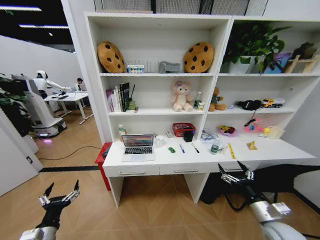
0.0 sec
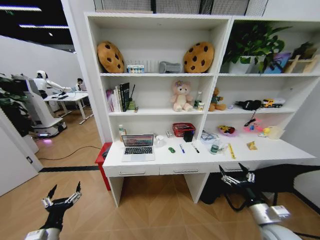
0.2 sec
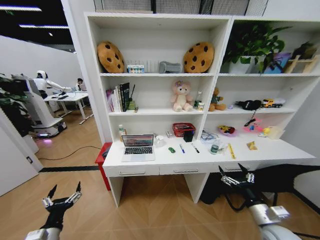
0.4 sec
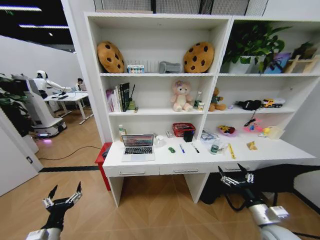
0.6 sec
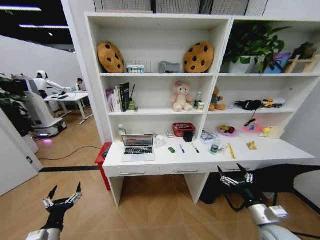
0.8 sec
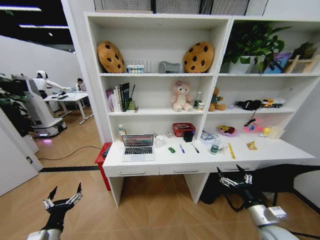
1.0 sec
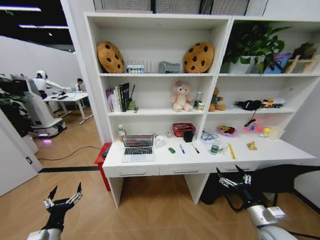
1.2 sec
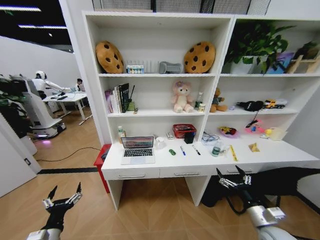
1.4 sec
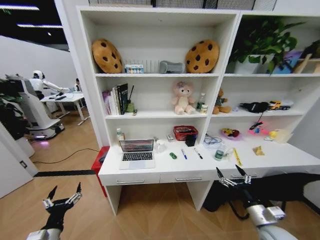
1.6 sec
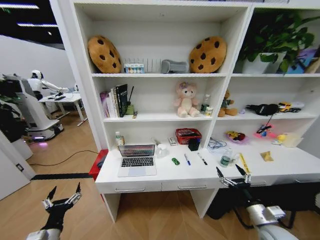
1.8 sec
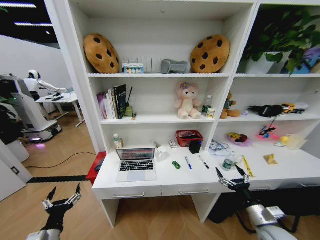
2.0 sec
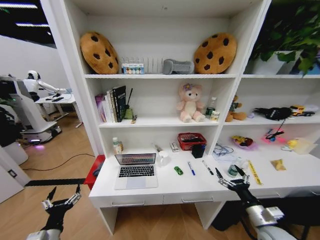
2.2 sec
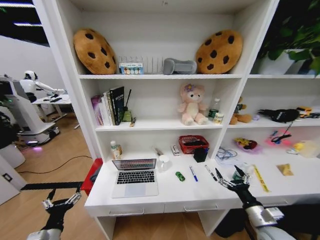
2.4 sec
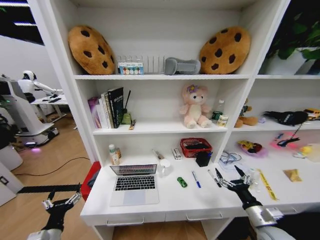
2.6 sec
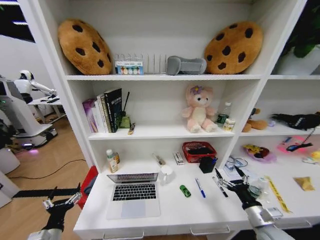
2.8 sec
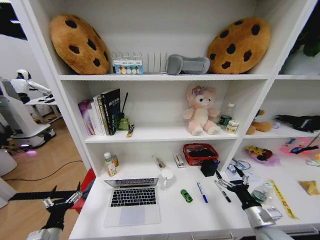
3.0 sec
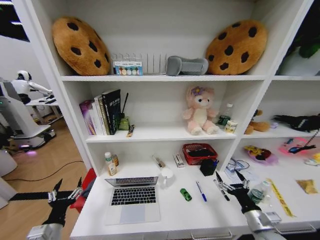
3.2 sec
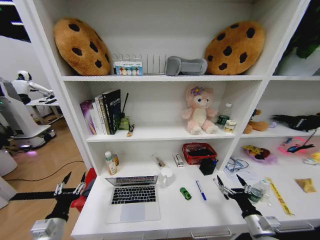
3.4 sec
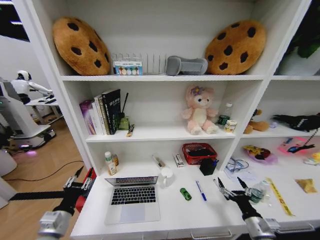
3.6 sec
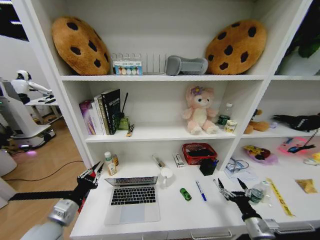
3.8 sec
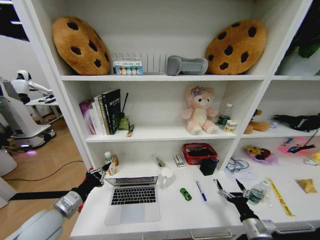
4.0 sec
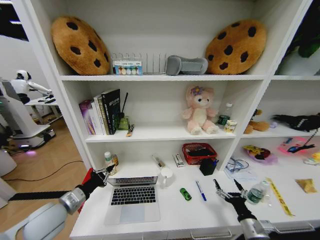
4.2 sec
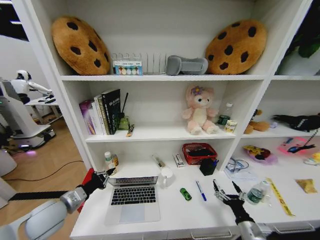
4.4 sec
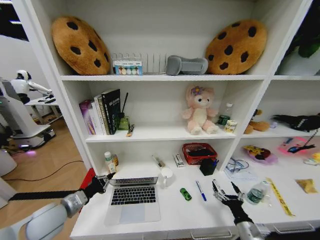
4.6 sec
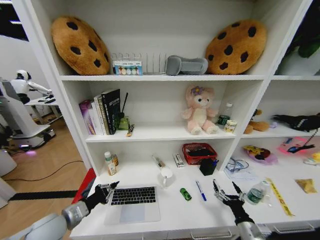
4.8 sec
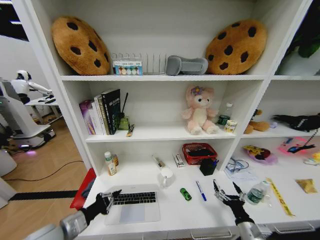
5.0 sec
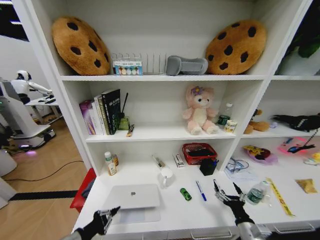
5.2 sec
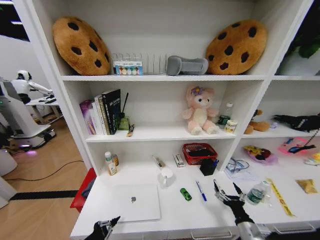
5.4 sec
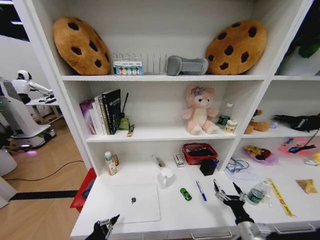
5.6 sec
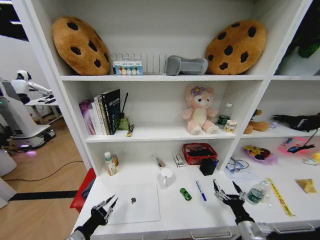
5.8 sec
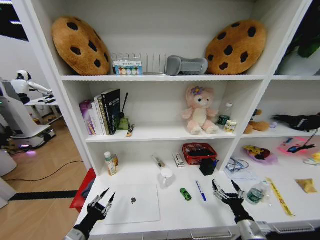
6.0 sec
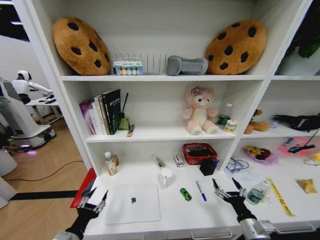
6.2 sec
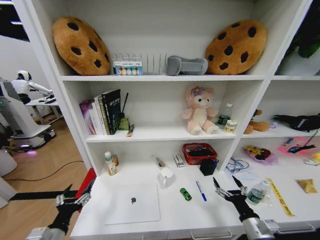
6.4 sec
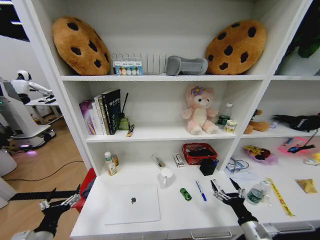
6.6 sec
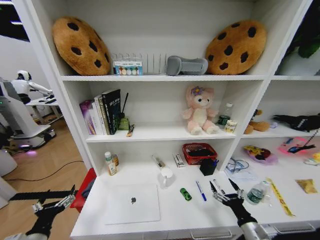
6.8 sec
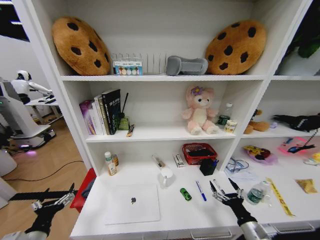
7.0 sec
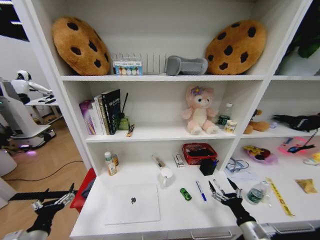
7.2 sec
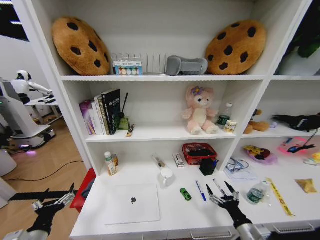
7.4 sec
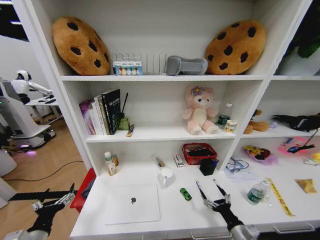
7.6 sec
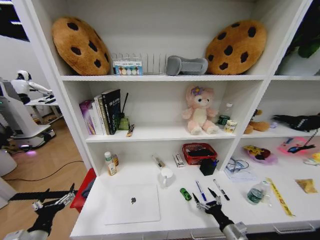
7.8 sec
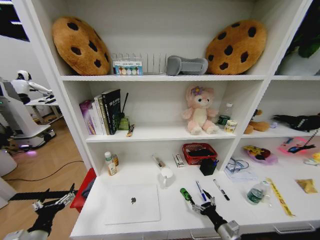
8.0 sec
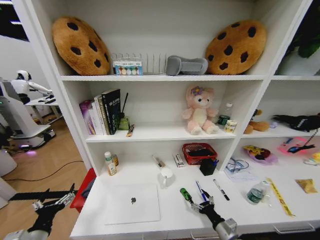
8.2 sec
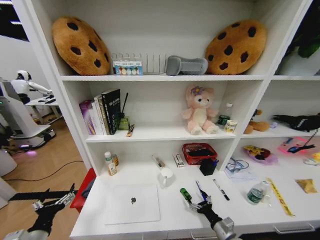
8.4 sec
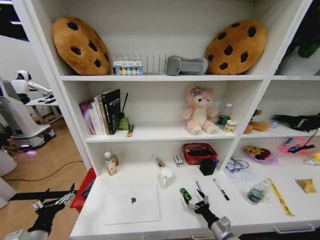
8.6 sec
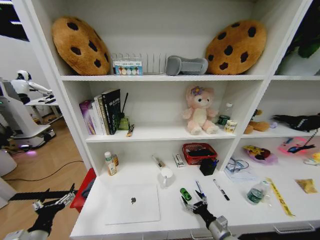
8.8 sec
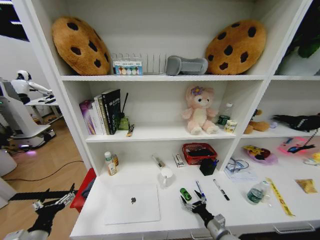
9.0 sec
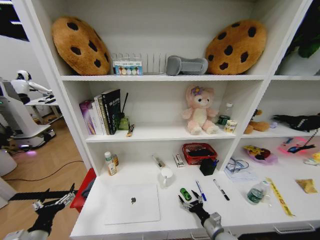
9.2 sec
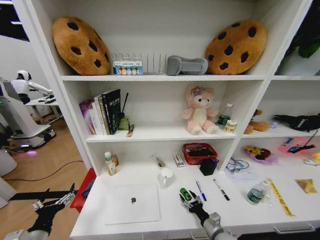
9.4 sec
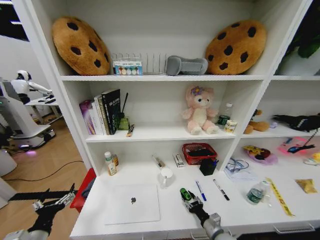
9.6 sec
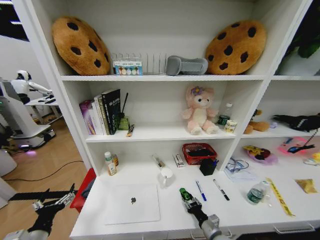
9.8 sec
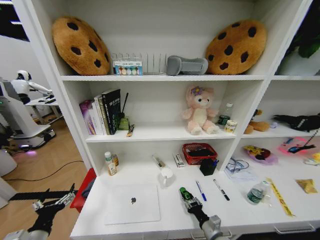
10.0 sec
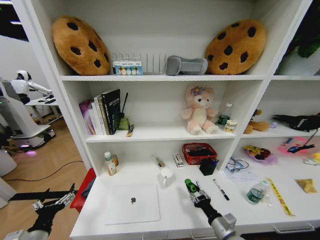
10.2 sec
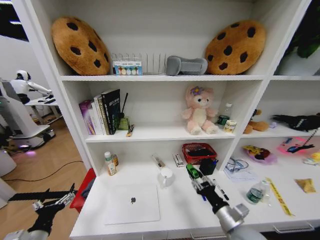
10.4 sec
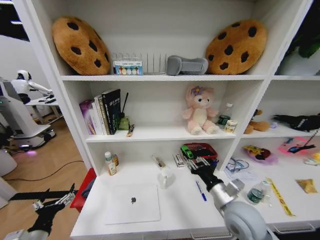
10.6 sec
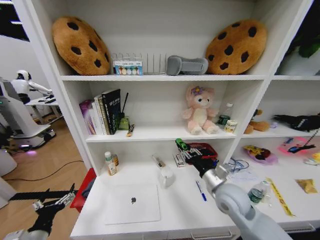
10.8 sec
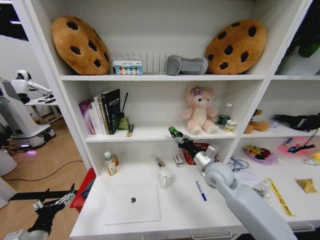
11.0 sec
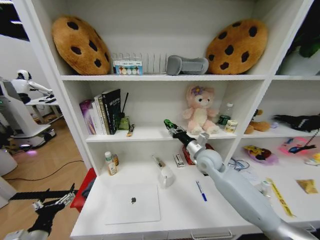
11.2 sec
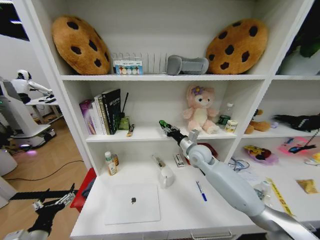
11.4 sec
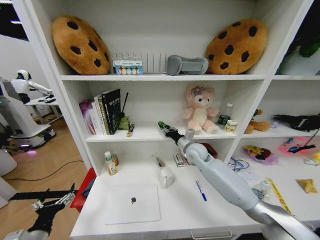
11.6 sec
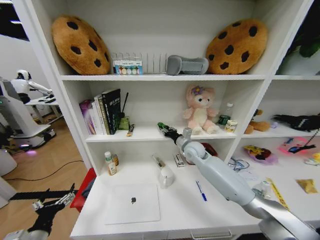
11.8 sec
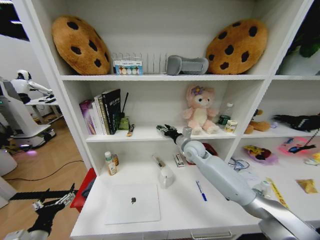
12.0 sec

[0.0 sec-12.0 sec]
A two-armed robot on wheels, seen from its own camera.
Task of the whole recording: Organize the objects on the table.
3.0 sec to 4.4 sec: The right gripper is displaced downward by some 5 cm. Meanwhile the left gripper travels forward and upward by about 15 cm, and closes.
4.4 sec to 6.0 sec: The left gripper is displaced backward and downward by approximately 15 cm, and opens.
6.0 sec to 7.6 sec: The left gripper heads to the left, covering about 5 cm, and opens up.
7.6 sec to 9.0 sec: The right gripper is displaced downward by some 5 cm.
9.0 sec to 10.4 sec: The right gripper goes approximately 15 cm upward, and closes its fingers.
10.4 sec to 12.0 sec: The right gripper is displaced forward by approximately 30 cm.

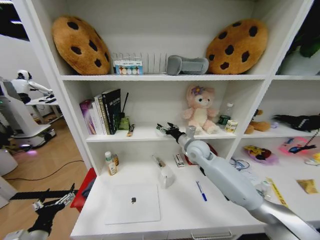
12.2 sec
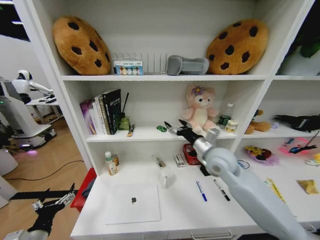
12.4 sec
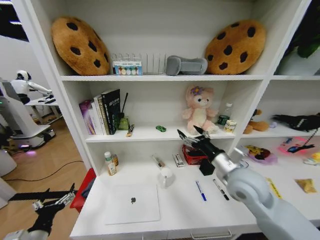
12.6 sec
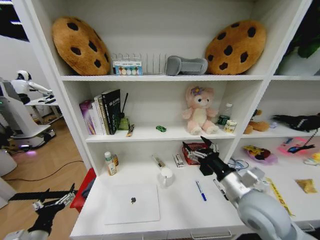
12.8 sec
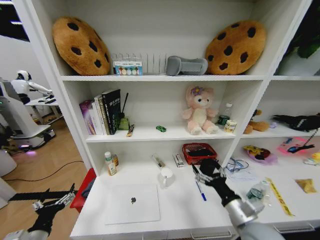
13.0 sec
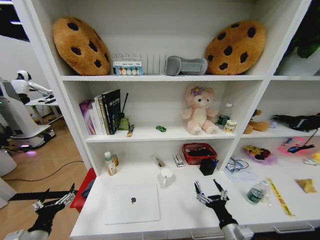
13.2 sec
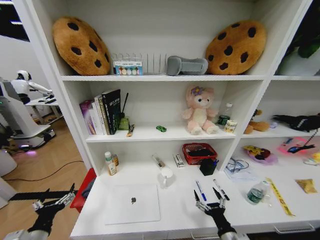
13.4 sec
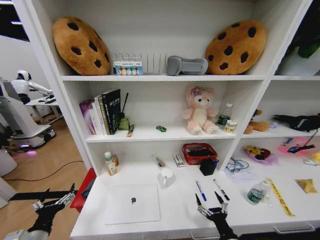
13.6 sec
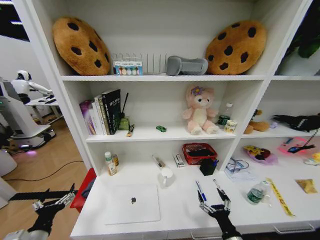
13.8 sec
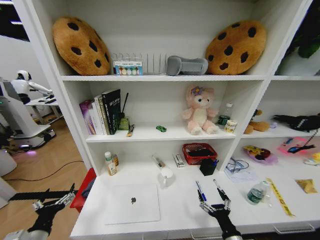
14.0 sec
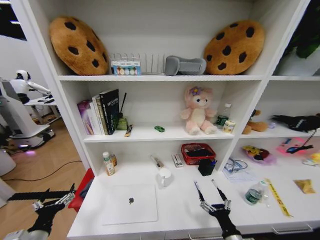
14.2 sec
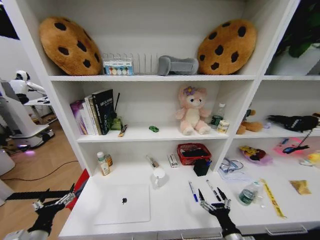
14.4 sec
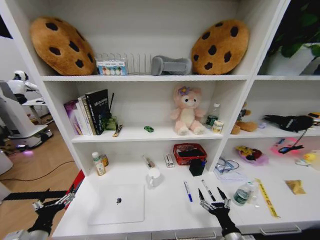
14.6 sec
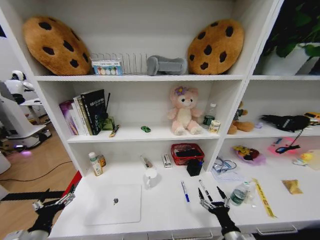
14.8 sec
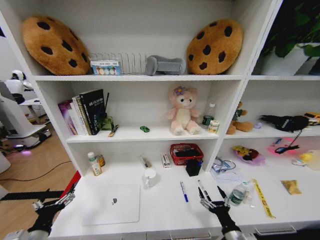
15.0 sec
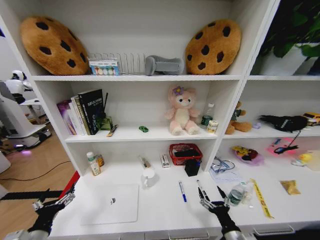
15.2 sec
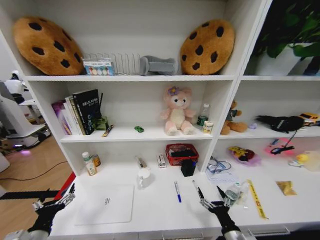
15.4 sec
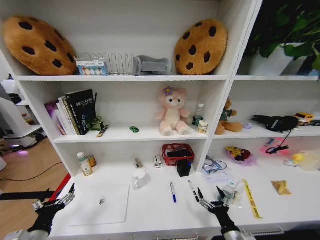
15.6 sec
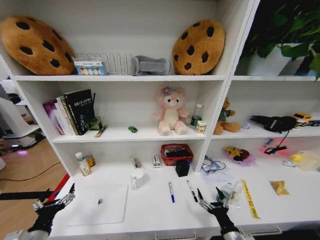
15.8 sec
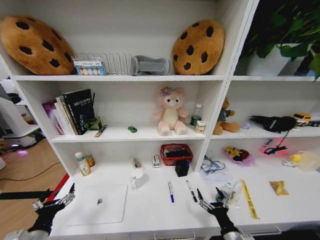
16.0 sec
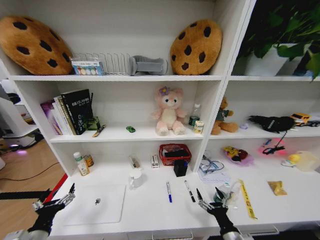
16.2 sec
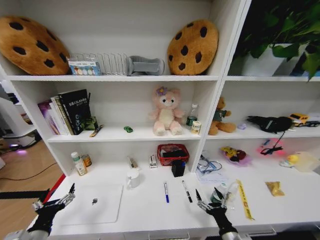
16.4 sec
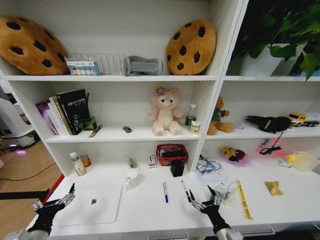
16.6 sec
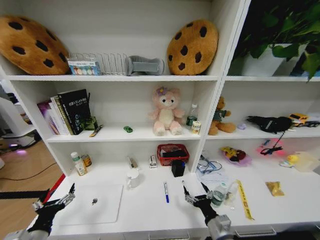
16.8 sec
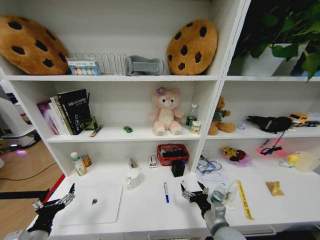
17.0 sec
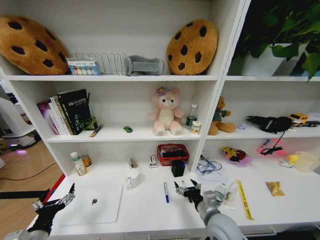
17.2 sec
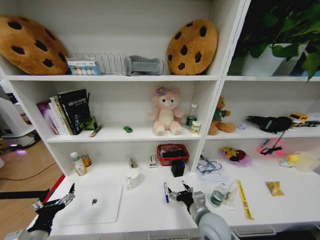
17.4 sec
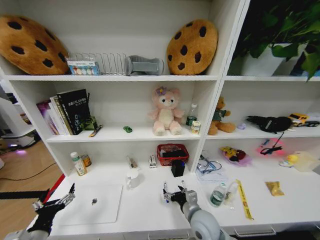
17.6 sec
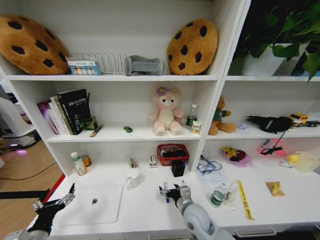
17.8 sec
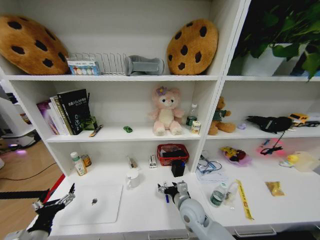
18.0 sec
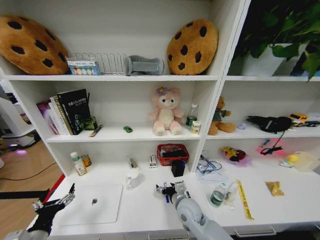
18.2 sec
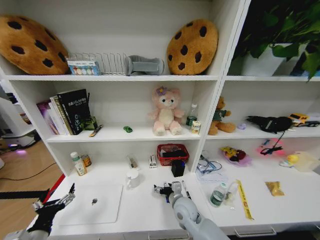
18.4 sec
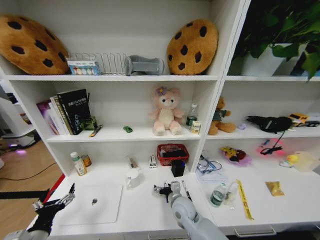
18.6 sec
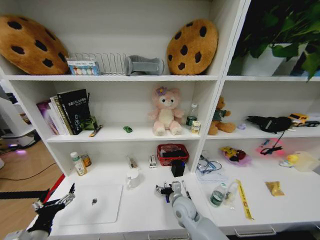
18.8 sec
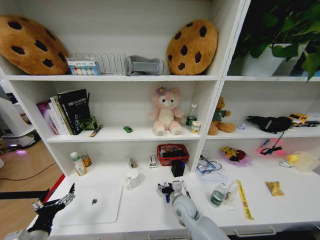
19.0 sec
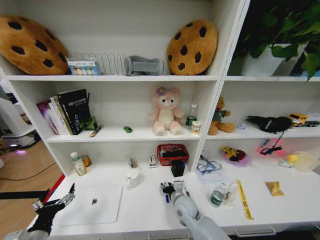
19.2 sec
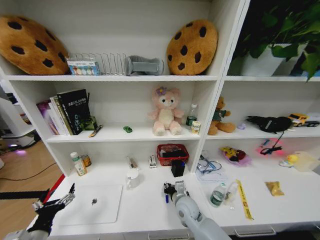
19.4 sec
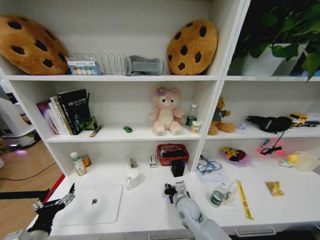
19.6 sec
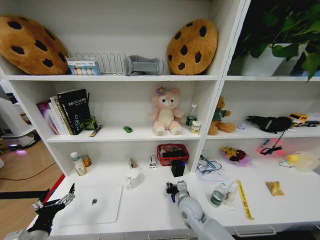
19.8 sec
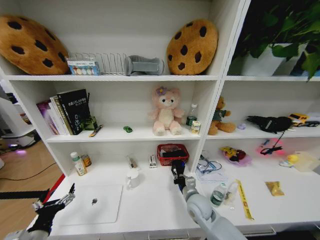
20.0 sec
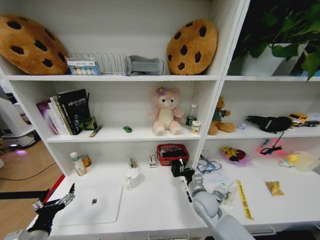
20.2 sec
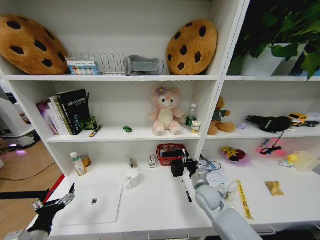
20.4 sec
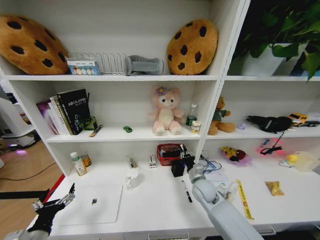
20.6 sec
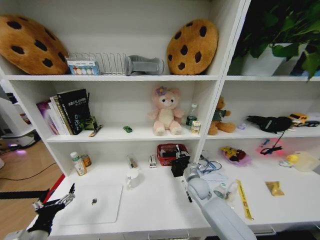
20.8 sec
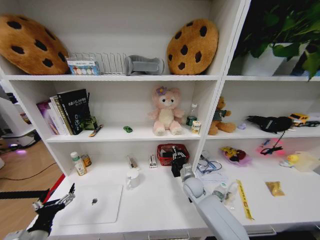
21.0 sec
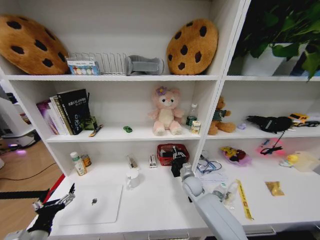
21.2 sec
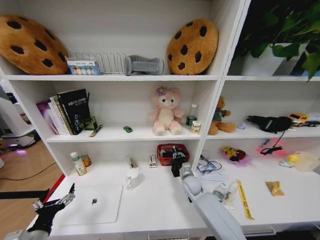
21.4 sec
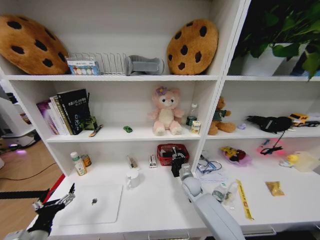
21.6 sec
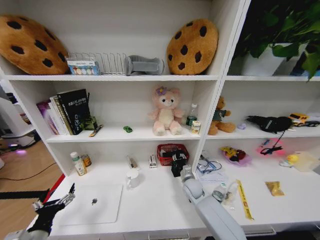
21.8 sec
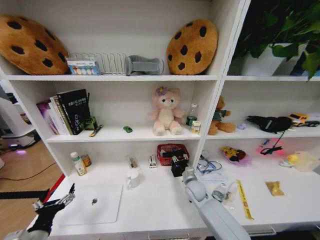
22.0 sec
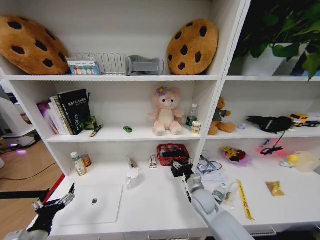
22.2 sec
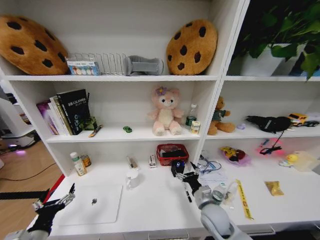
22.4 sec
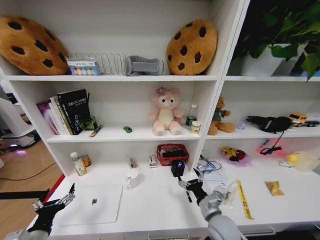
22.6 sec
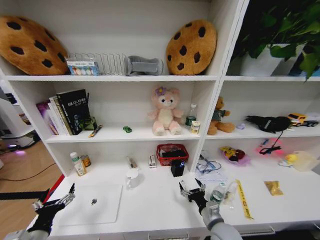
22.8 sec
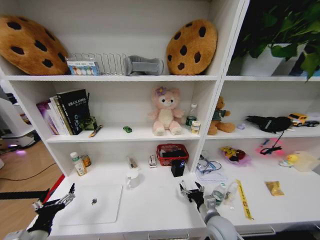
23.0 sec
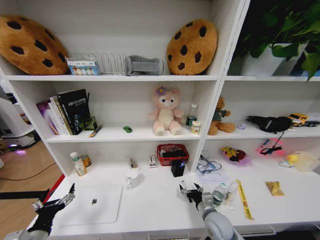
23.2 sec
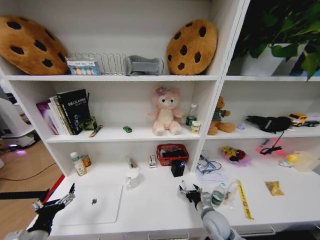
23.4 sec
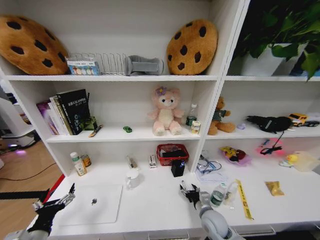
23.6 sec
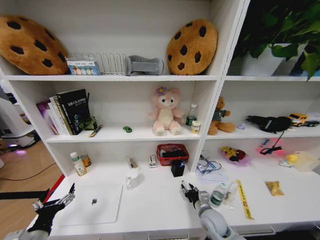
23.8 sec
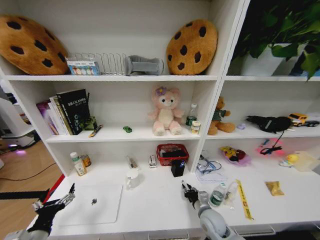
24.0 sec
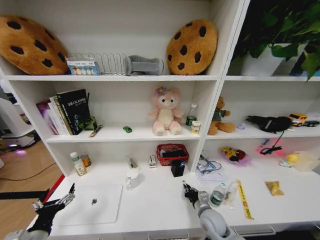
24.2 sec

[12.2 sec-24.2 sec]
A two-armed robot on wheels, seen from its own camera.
Task of the whole recording: Organize the objects on the table.
12.2 sec to 13.8 sec: The right gripper moves backward and downward, roughly 40 cm.
16.6 sec to 18.2 sec: The right gripper is displaced forward and to the left by approximately 20 cm.
18.2 sec to 19.8 sec: The right gripper closes up.
19.8 sec to 21.2 sec: The right gripper shifts about 10 cm forward.
21.2 sec to 22.6 sec: The right gripper moves backward, approximately 20 cm, and opens up.
22.6 sec to 24.2 sec: The right gripper shifts some 5 cm downward, and closes its fingers.
